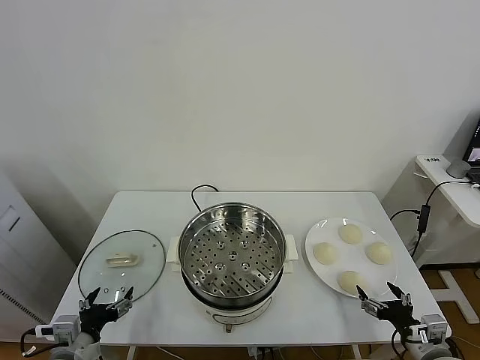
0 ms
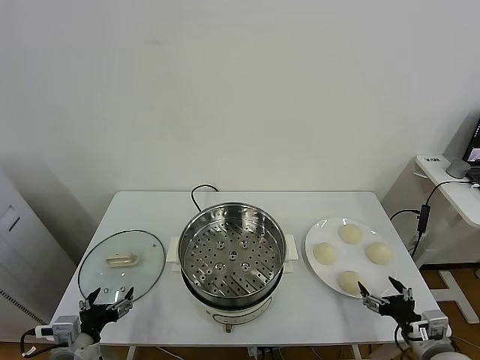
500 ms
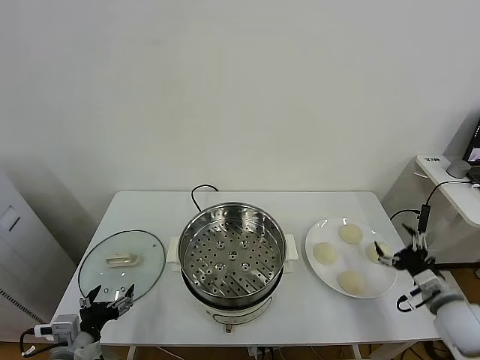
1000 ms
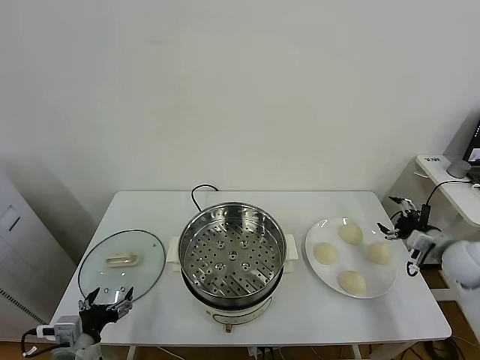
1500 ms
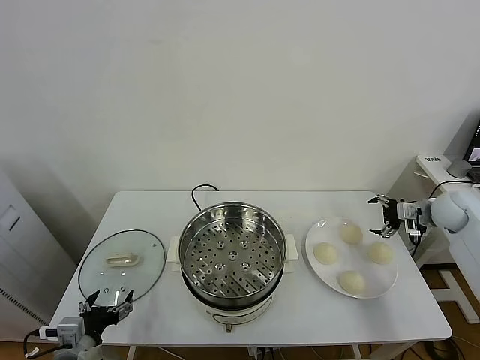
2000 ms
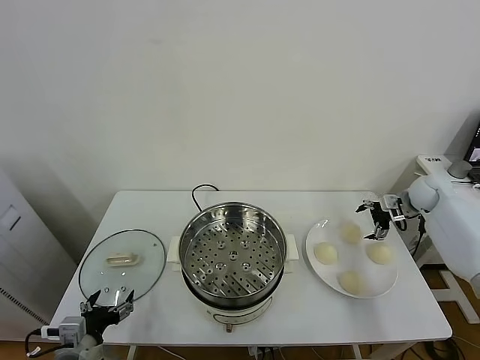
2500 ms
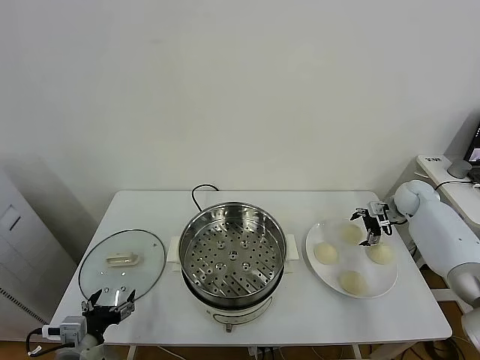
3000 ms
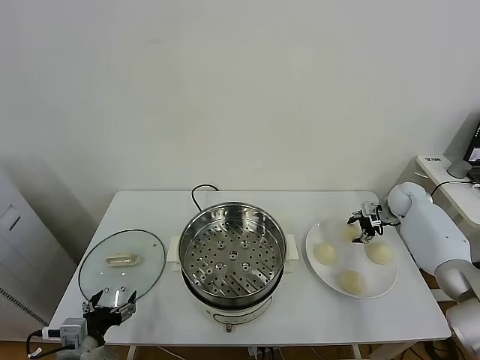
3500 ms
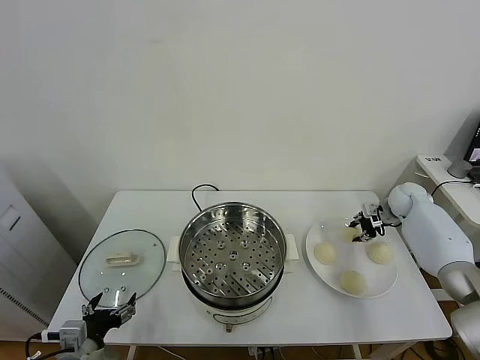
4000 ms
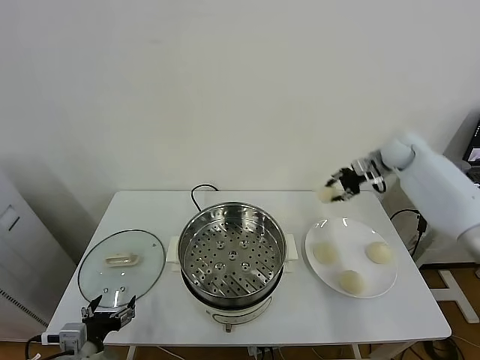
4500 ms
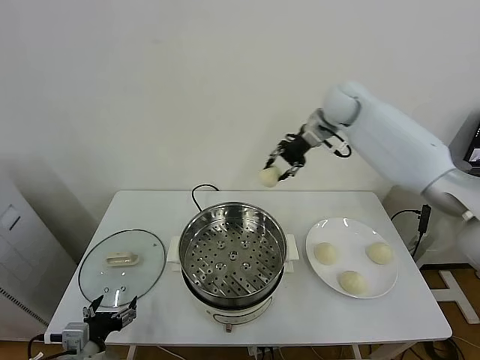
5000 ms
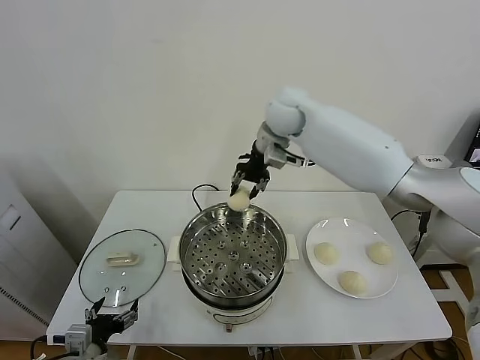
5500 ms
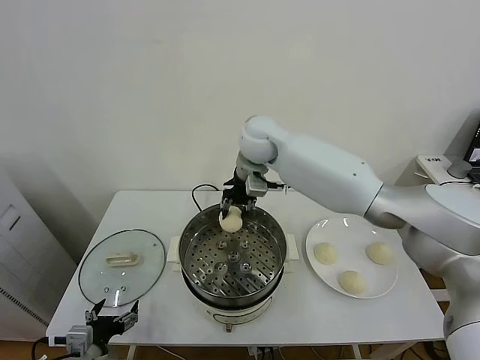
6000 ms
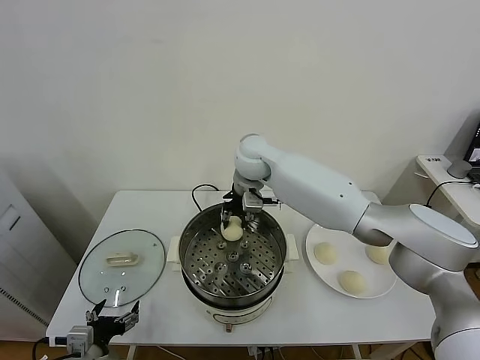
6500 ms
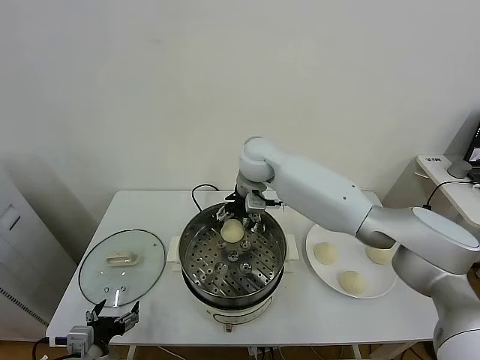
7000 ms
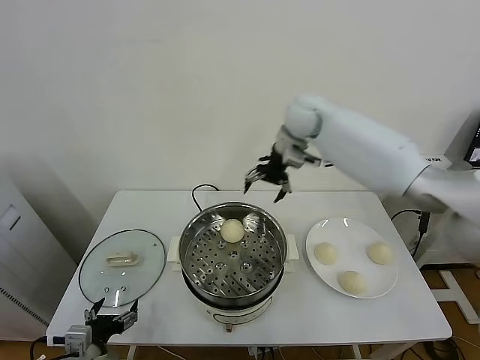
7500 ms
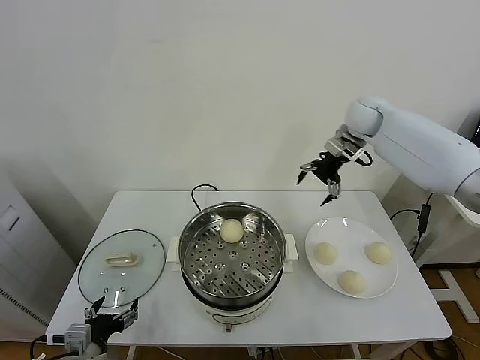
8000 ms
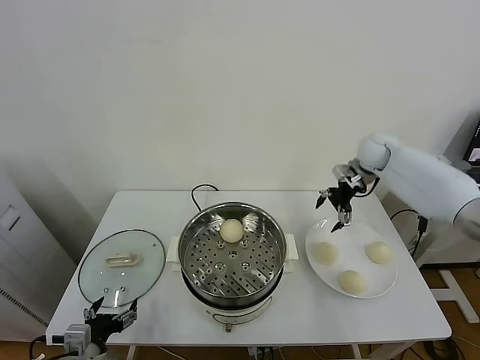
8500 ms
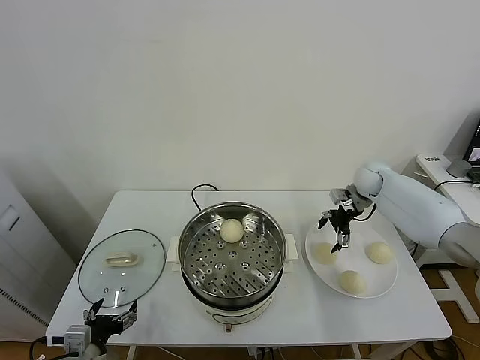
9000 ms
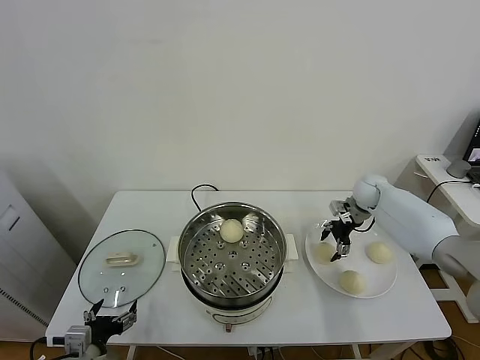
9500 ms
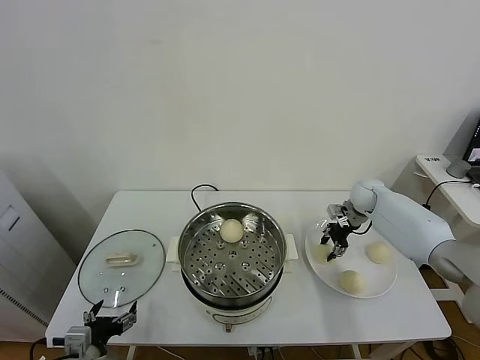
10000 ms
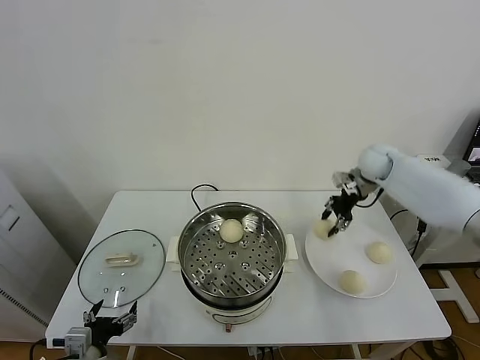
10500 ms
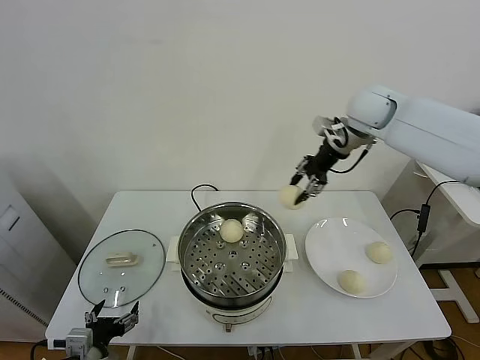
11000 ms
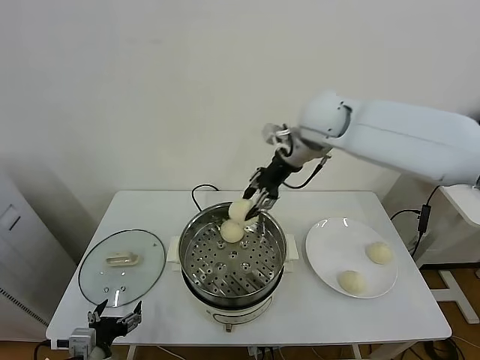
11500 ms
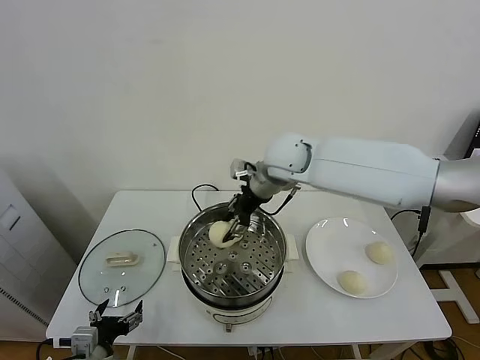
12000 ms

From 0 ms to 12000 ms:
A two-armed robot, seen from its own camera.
Task of the whole recording: take steamed baozi put them in steamer.
Step, from 0 ms to 3500 ms: Grasp the baozi in the plate with right gripper.
Step, from 4000 ms to 7000 ms: Place the baozi on the steamer with right gripper.
Step, from 7500 ms to 10000 ms: Grasp the baozi in the plate with right gripper.
From 2000 ms to 4000 ms: The right gripper moves forward, roughly 5 cm, and closes its fingers.
From 4000 ms to 6000 ms: The right gripper goes roughly 50 cm to the left and upward.
From 6000 ms to 8000 ms: The right gripper moves to the right, roughly 30 cm, and opens its fingers.
From 8000 ms to 10000 ms: The right gripper is displaced downward by about 20 cm, and closes up.
From 10000 ms to 12000 ms: The right gripper travels to the left and upward by some 35 cm.

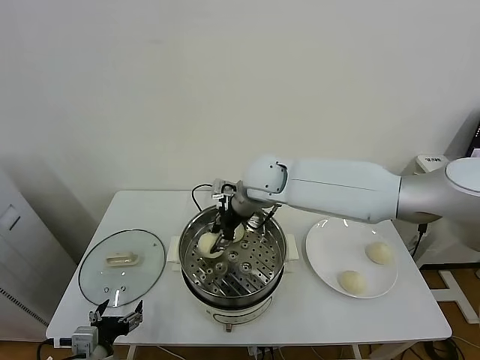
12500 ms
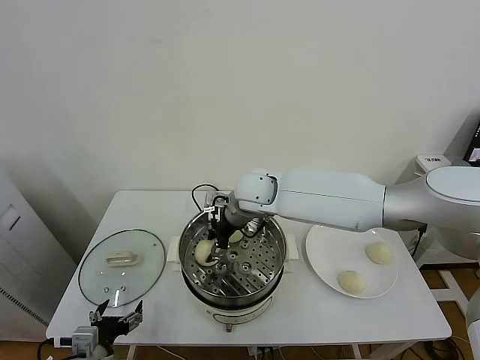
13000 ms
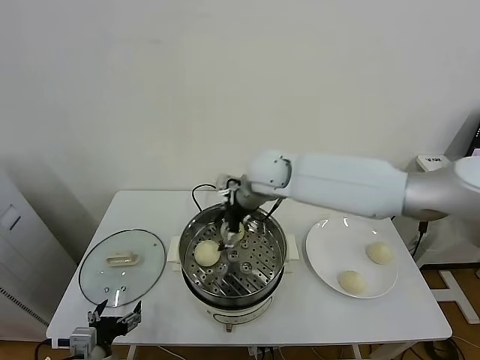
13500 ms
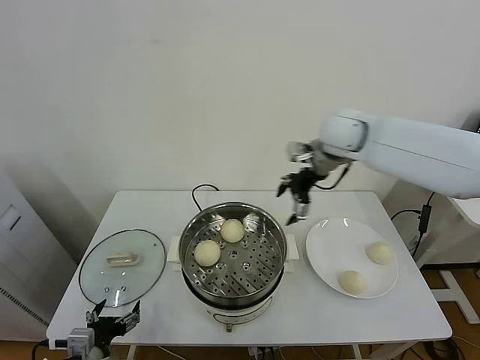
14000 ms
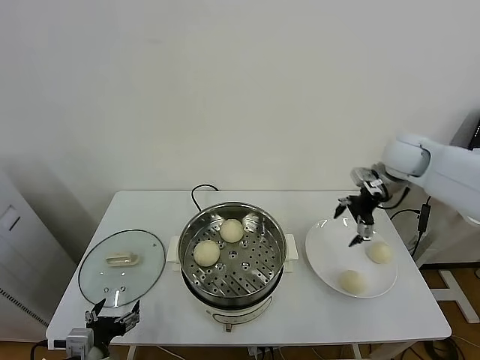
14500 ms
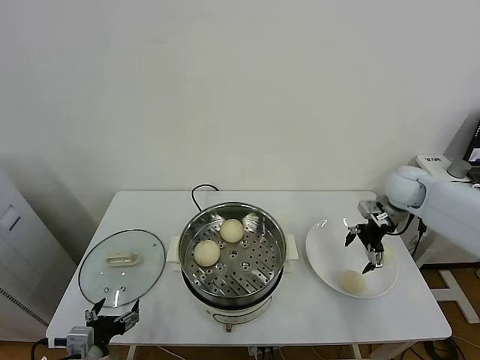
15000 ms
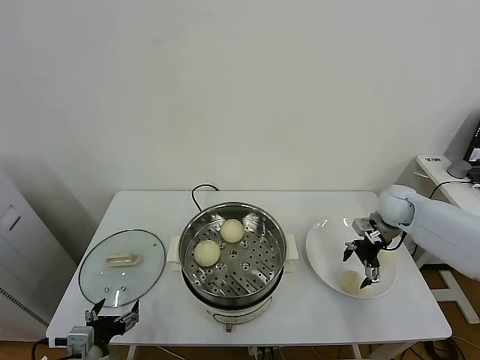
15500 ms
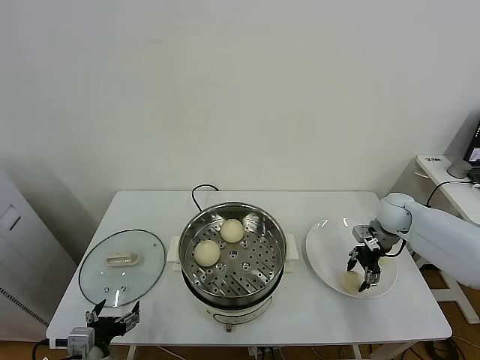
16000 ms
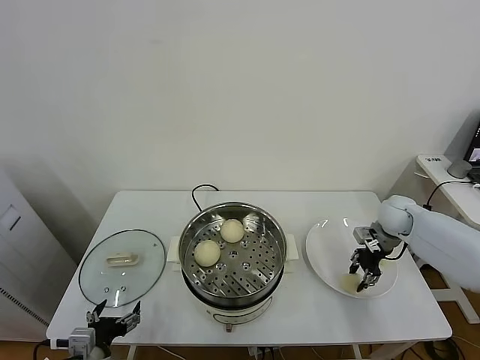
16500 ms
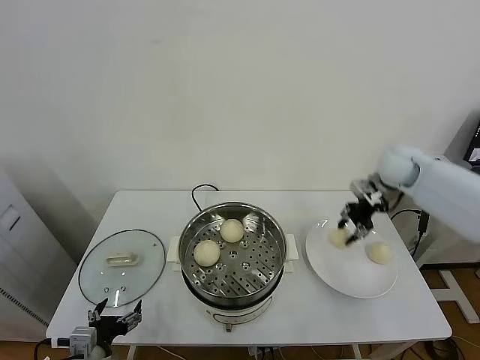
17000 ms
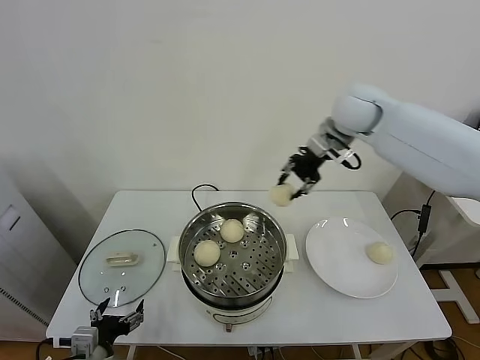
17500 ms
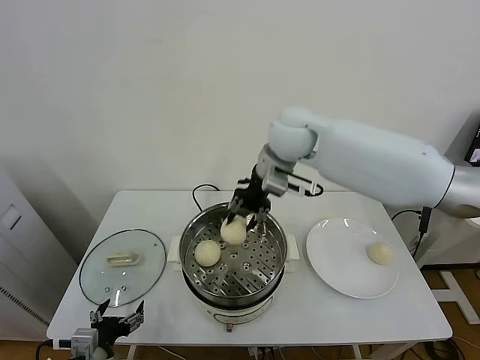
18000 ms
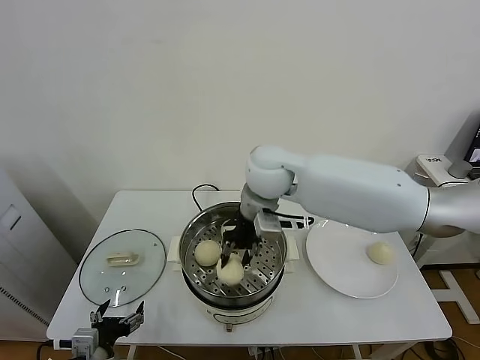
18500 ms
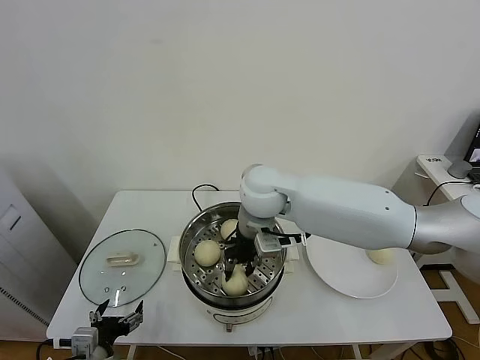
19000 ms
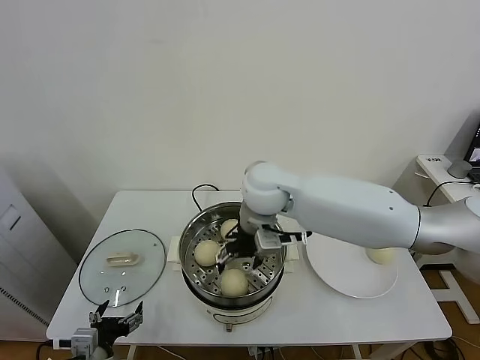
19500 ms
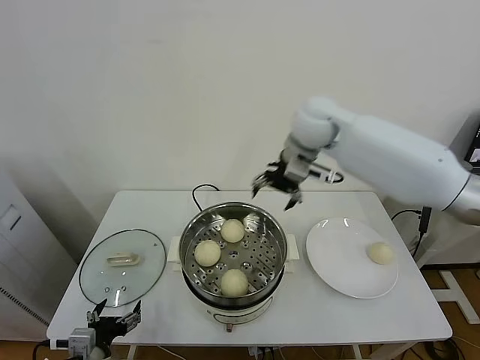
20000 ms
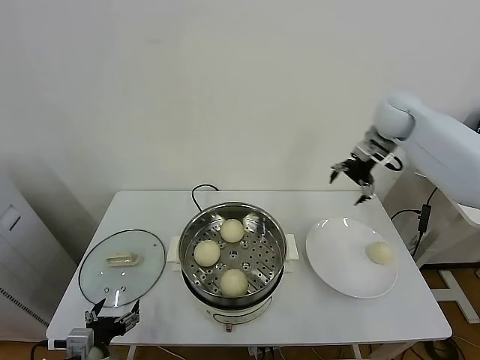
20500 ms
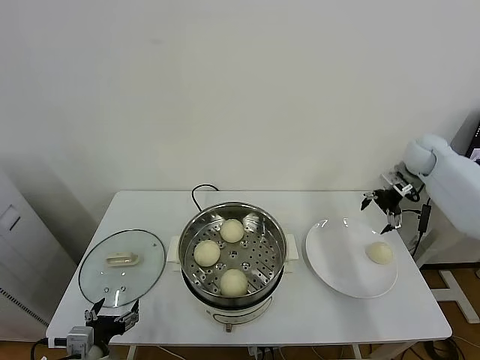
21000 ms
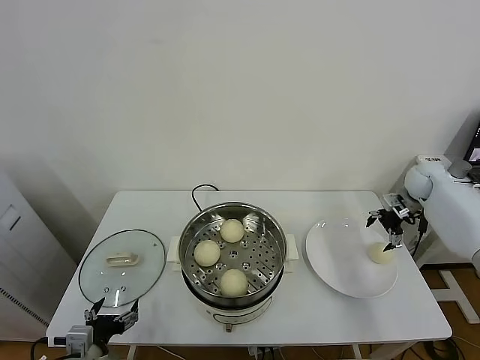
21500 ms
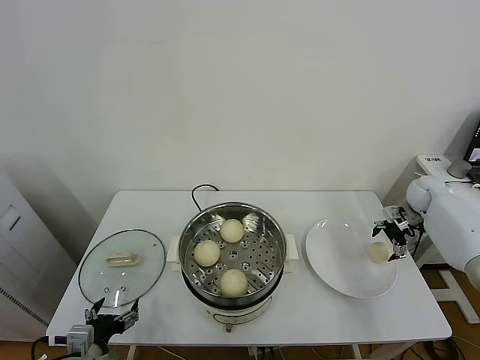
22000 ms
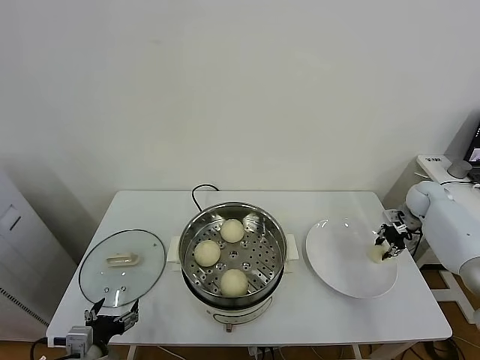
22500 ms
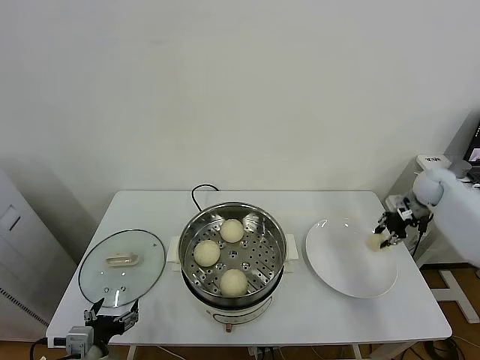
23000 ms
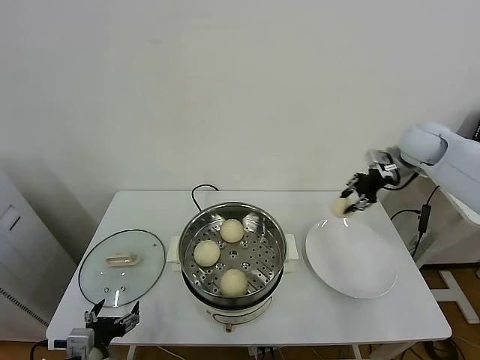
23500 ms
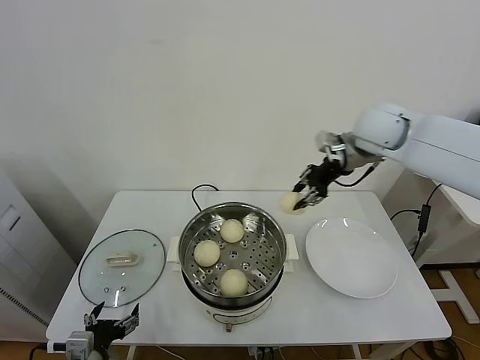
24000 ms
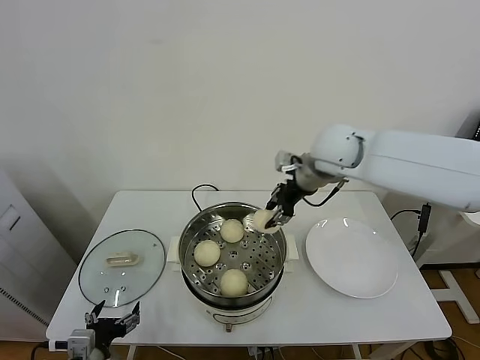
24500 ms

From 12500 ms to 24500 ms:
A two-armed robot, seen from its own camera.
Task of the whole recording: take steamed baozi put them in steamer.
Step, from 13500 ms to 16000 ms: Grasp the baozi in the plate with right gripper.
Step, from 16500 ms to 19500 ms: Place the baozi on the steamer with right gripper.
Step, from 20000 ms to 22500 ms: Grasp the baozi in the plate with right gripper.
From 12500 ms to 14500 ms: The right gripper is displaced to the right by some 30 cm, and opens.
From 14500 ms to 16500 ms: The right gripper shifts roughly 15 cm downward, and closes its fingers.
From 16500 ms to 18500 ms: The right gripper shifts approximately 40 cm to the left and upward.
From 18500 ms to 20500 ms: The right gripper travels to the right and forward by about 35 cm, and opens up.
From 20500 ms to 22500 ms: The right gripper heads downward and to the right, covering roughly 25 cm, and closes up.
From 22500 ms to 24500 ms: The right gripper moves to the left and upward, roughly 40 cm.

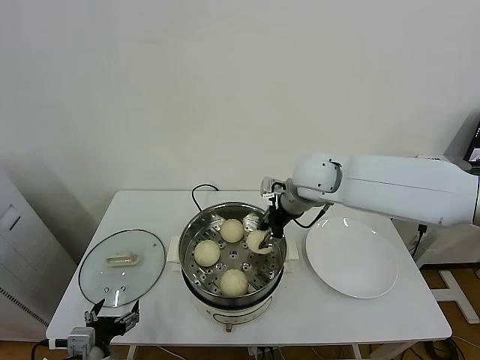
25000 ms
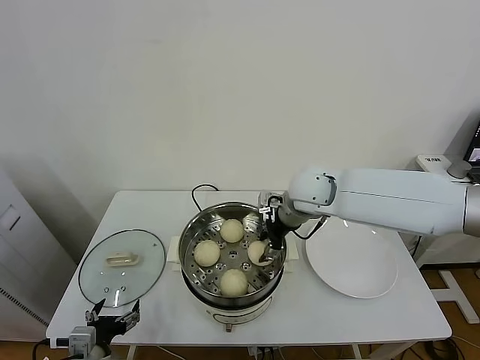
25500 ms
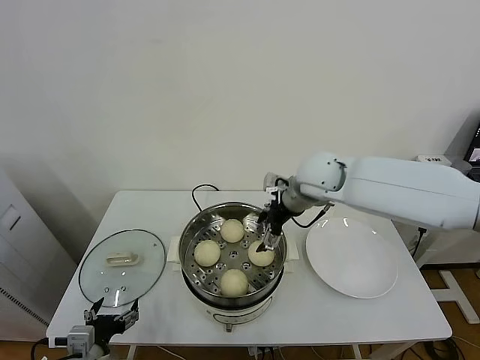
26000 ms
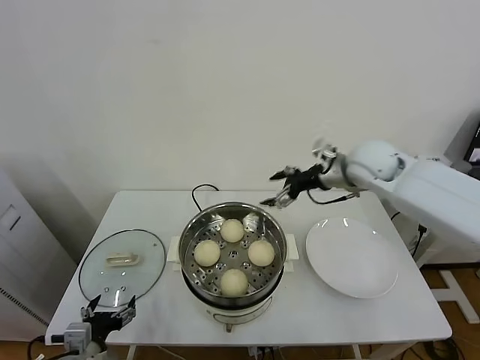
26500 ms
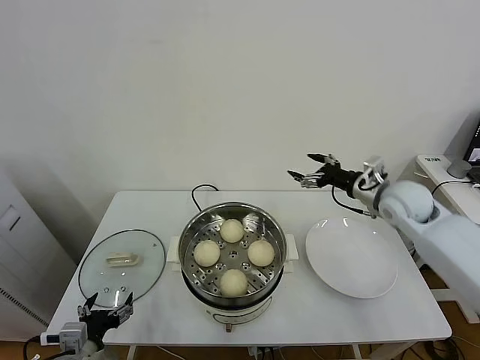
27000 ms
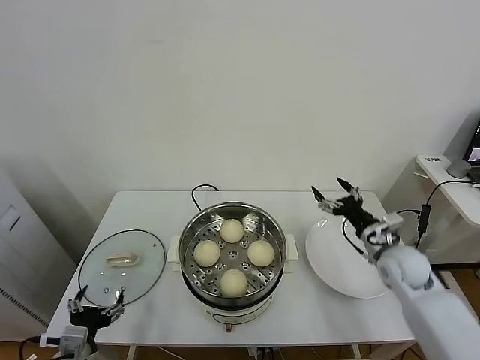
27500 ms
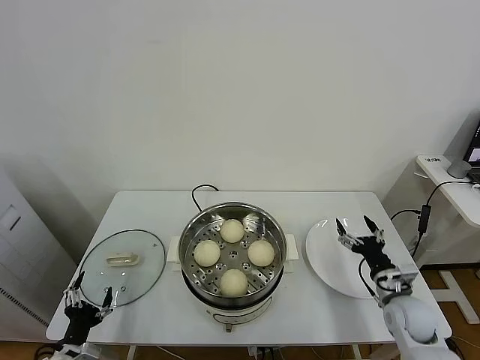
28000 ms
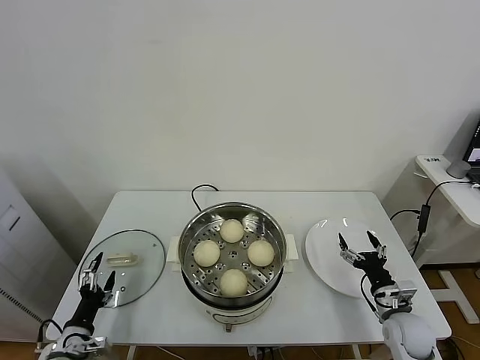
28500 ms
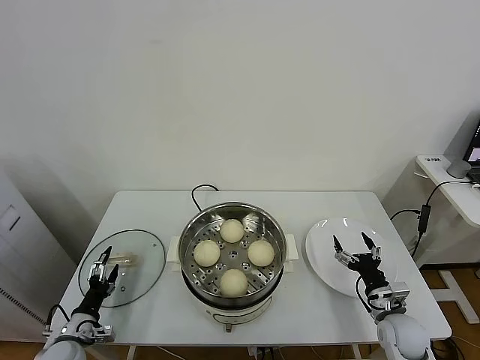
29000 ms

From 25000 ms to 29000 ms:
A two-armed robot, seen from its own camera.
Task of the whole recording: take steamed baozi put them in steamer.
From 25000 ms to 27000 ms: The right gripper goes roughly 20 cm to the right, and opens up.
From 27000 ms to 29000 ms: The left gripper shifts roughly 15 cm downward, to the left and forward. Meanwhile the right gripper is displaced downward and backward by some 30 cm.
